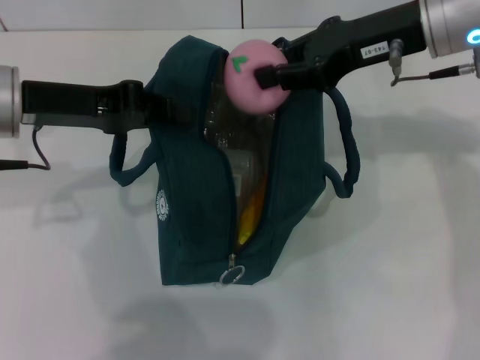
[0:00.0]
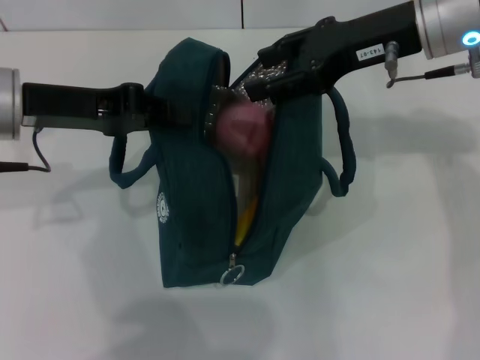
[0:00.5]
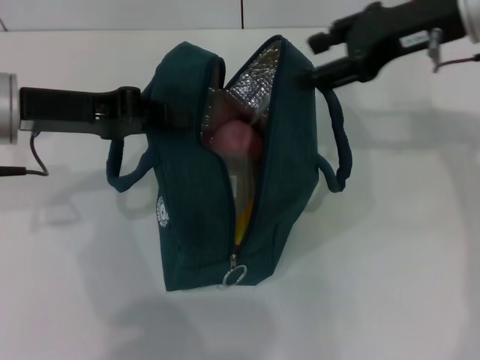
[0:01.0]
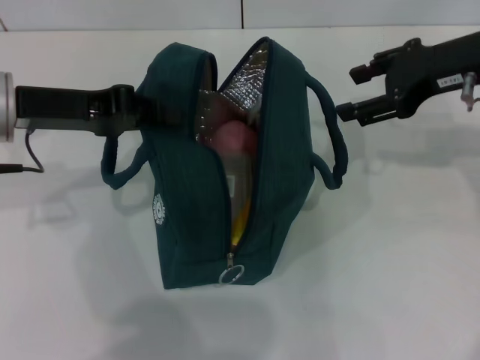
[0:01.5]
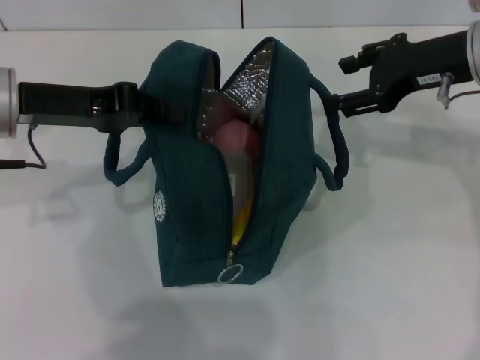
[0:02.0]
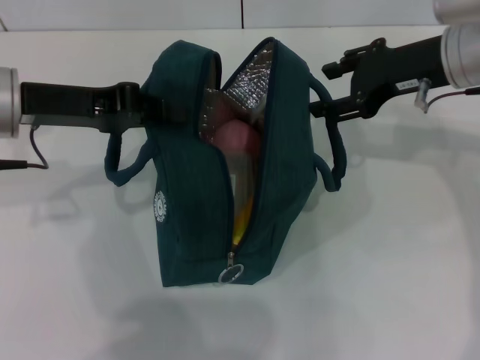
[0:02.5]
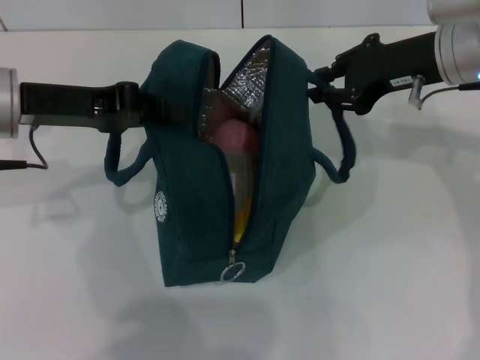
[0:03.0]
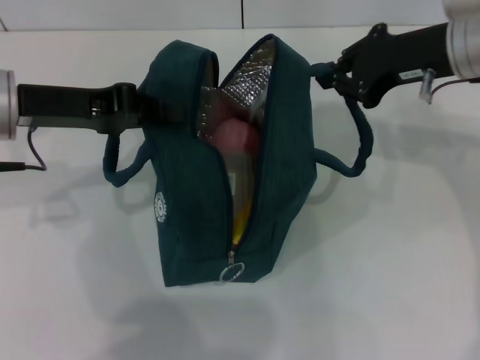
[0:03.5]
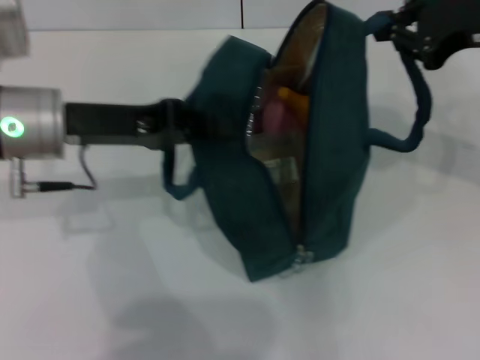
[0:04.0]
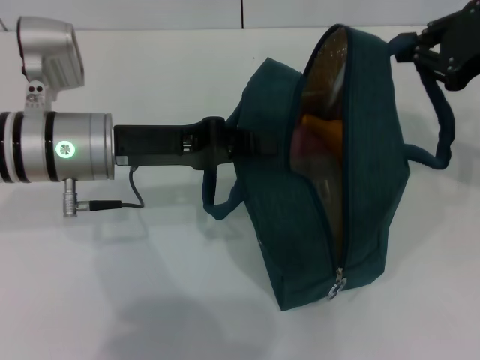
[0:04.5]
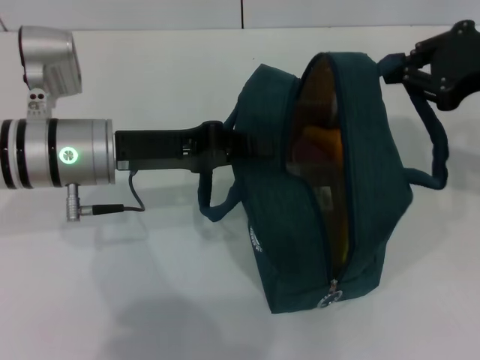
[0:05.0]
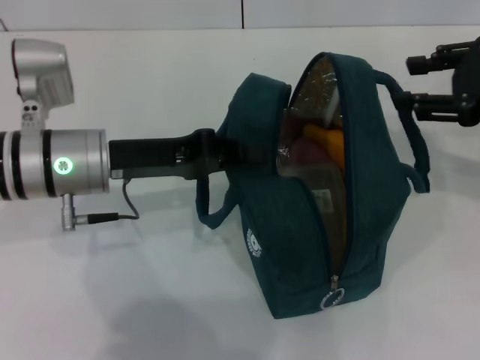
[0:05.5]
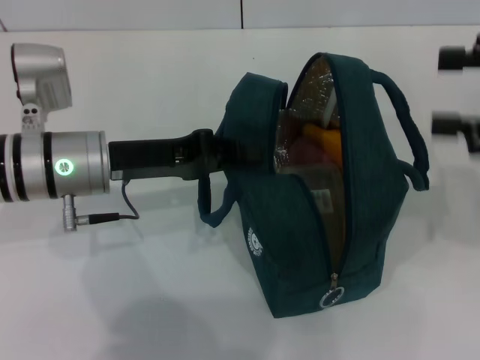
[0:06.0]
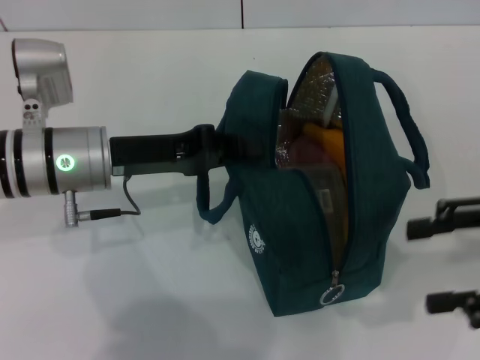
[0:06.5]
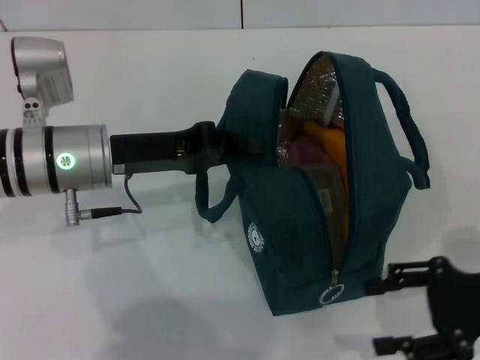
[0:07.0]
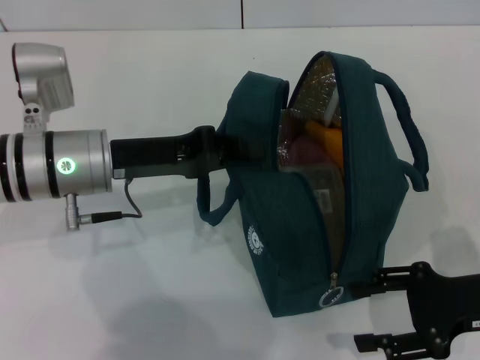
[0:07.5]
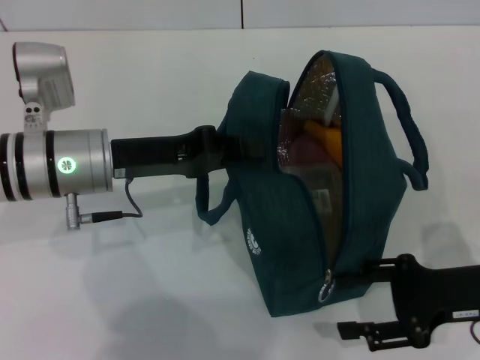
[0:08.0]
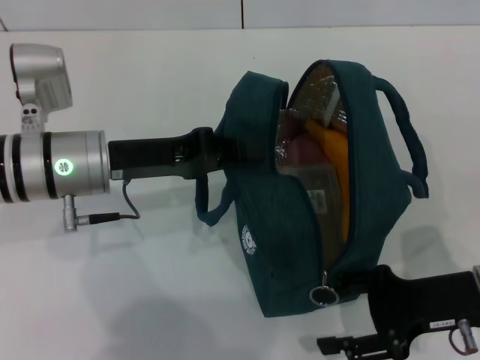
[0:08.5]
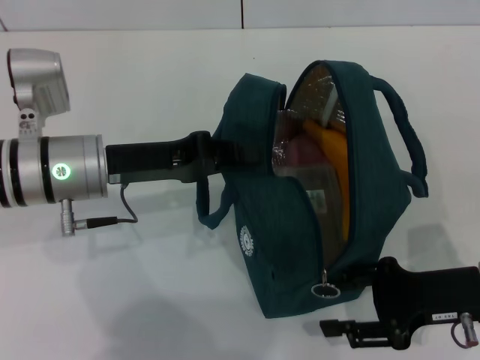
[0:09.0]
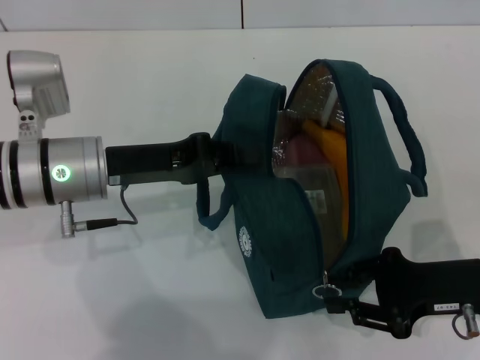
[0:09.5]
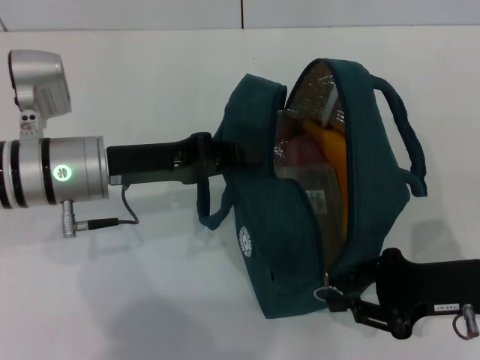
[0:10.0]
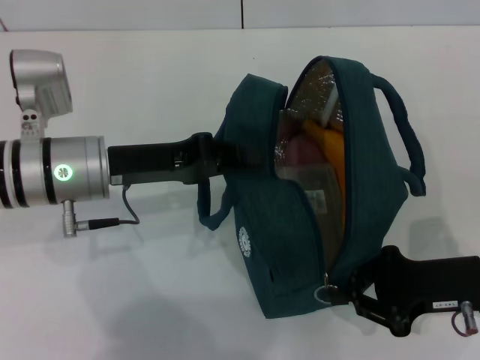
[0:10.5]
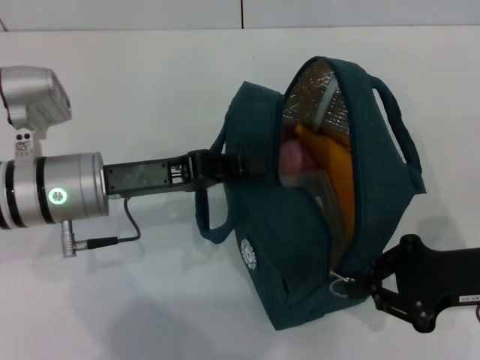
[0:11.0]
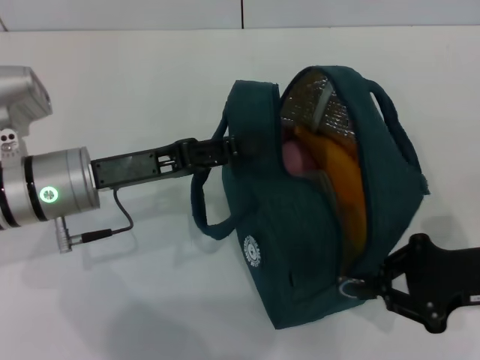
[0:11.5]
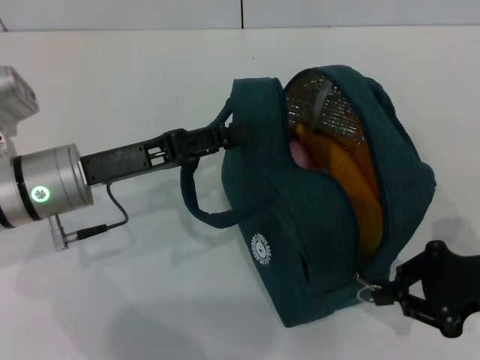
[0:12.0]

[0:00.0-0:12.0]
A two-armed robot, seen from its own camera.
Step, 0:01.0 to 0:05.0: Hold the lunch bag with your right hand.
0:00.0 to 0:02.0: The right gripper is displaced to the right by some 5 cm, and opens its fingers.
0:02.0 to 0:04.0: The right gripper shifts by roughly 5 cm, and closes its fingers.
0:04.0 to 0:06.0: The left gripper moves approximately 5 cm. Meanwhile the right gripper moves backward and to the right, approximately 10 cm, and opens.
0:06.0 to 0:08.0: The right gripper heads downward, covering about 20 cm.
0:08.0 to 0:10.0: The right gripper closes its fingers.
0:10.0 to 0:12.0: The left gripper opens.

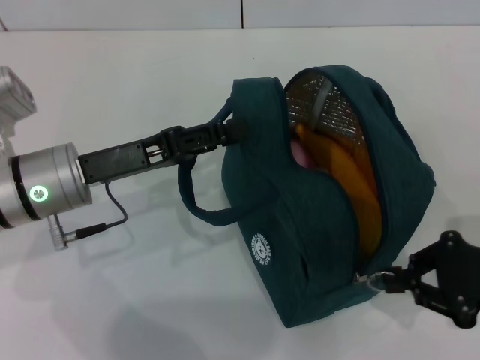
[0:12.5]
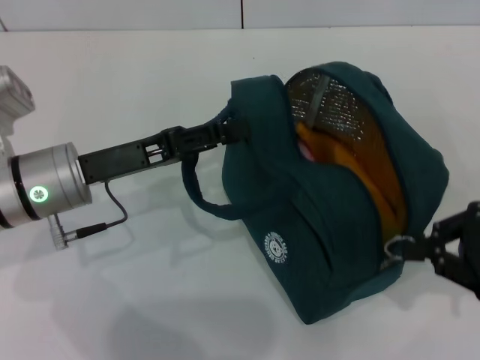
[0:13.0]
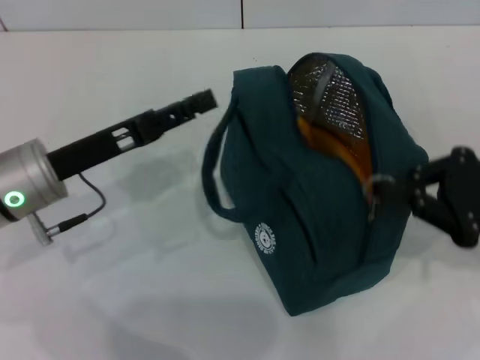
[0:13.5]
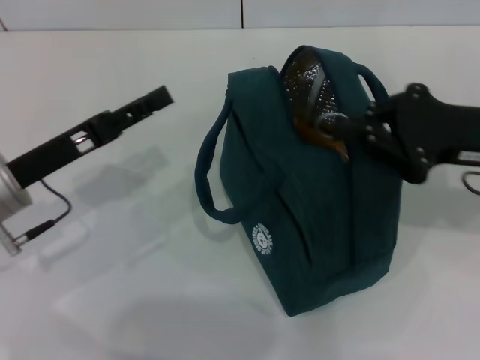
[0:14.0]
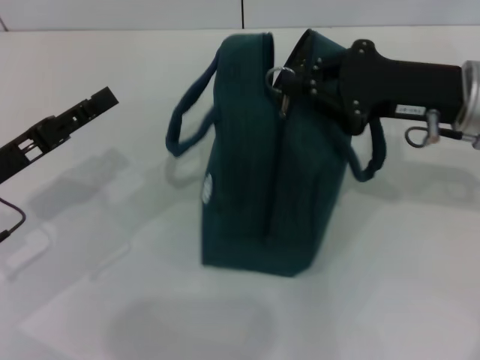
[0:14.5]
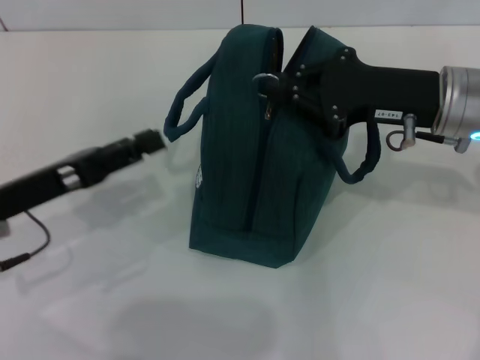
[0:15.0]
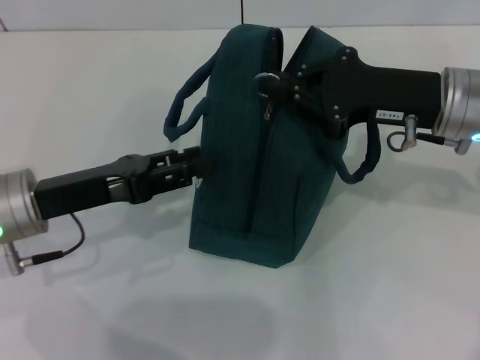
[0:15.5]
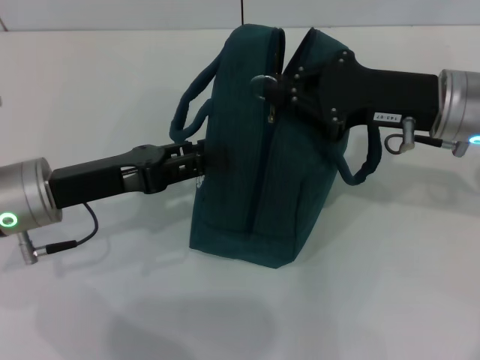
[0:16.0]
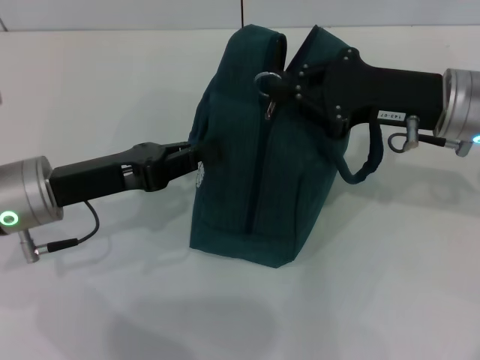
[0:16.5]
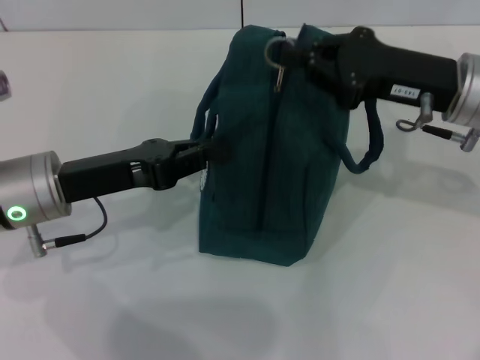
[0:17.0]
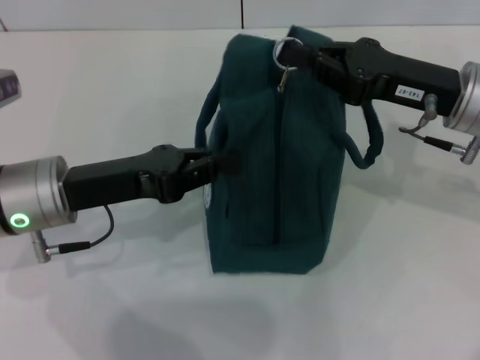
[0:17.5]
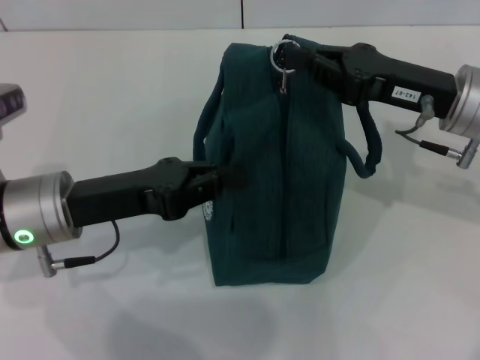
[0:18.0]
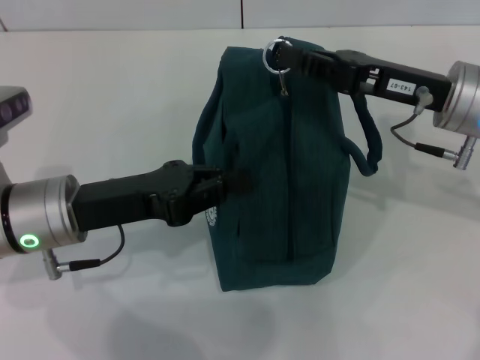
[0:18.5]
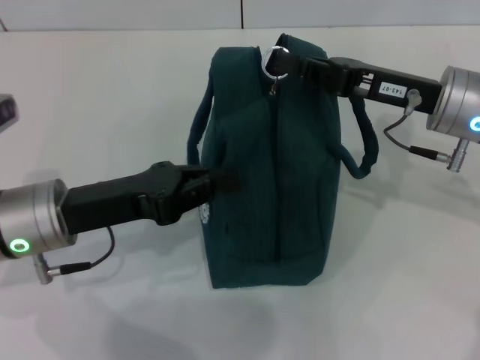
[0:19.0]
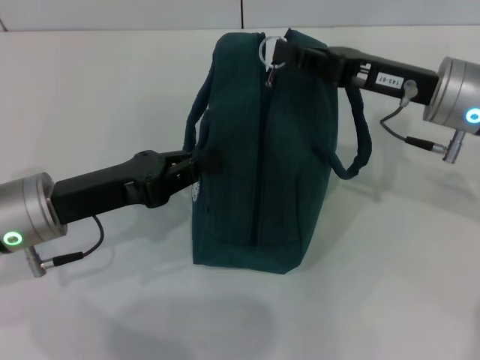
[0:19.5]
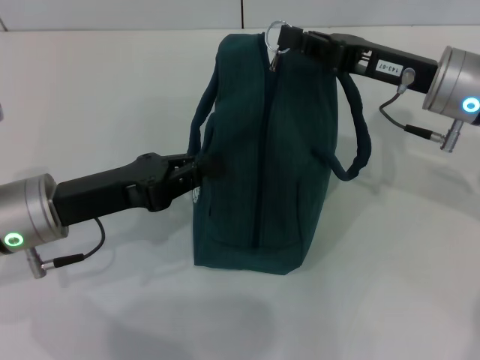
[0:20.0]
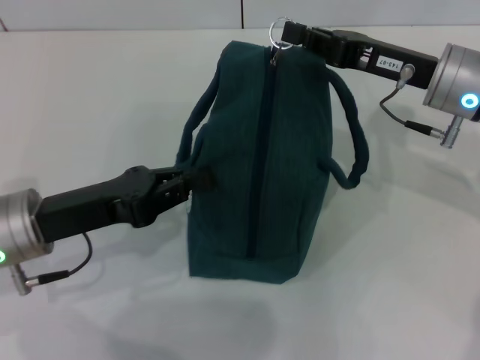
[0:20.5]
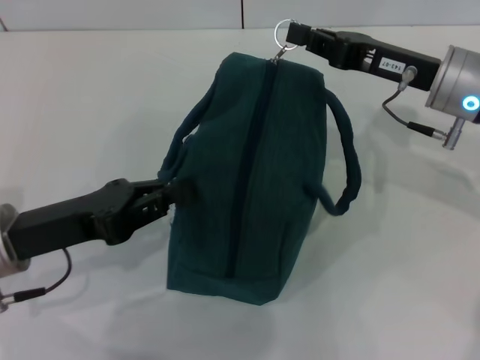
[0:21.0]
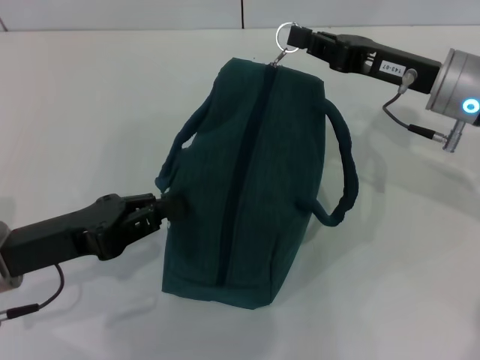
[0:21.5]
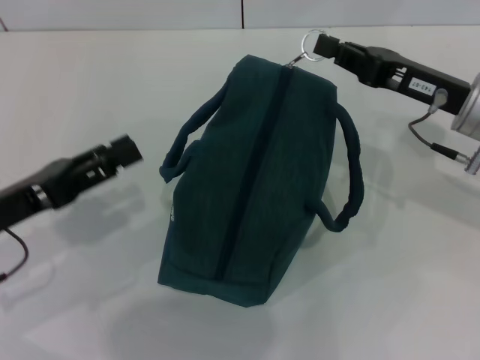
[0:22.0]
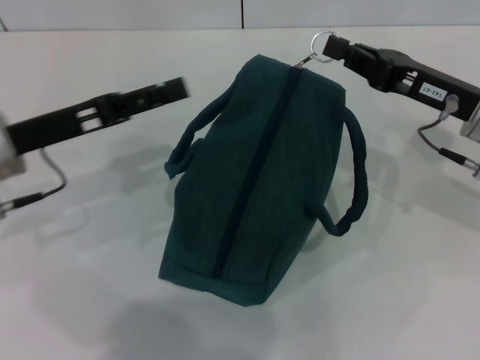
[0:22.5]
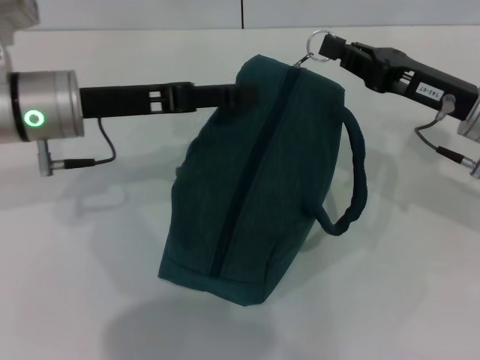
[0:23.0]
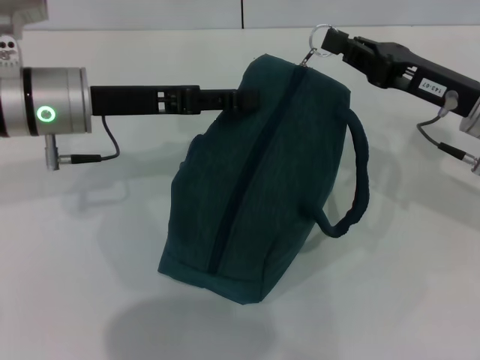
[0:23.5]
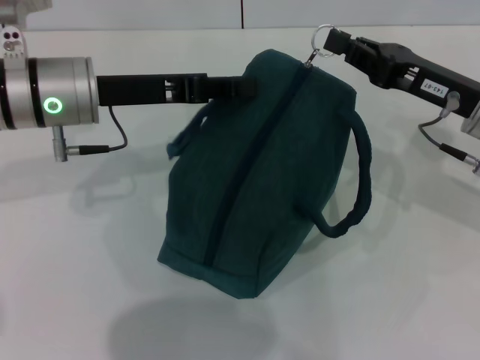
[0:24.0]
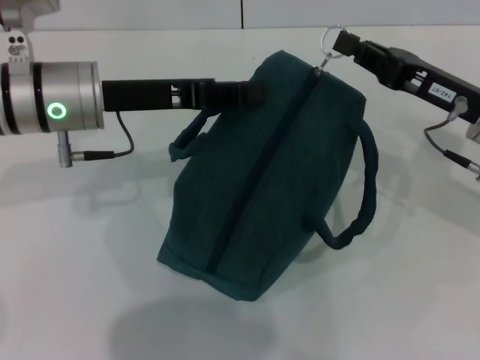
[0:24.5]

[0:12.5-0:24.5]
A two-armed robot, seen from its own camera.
0:12.5 to 0:14.5: The right gripper is displaced forward, to the left and upward by some 15 cm; the left gripper moves to the left, some 10 cm.
0:14.5 to 0:16.5: The left gripper goes approximately 5 cm to the right, and closes its fingers.
0:18.5 to 0:20.5: The grippers move only a little.
0:20.5 to 0:22.5: The left gripper travels forward by roughly 5 cm, and opens.
0:22.5 to 0:24.5: The left gripper moves to the right, some 5 cm, and closes up.

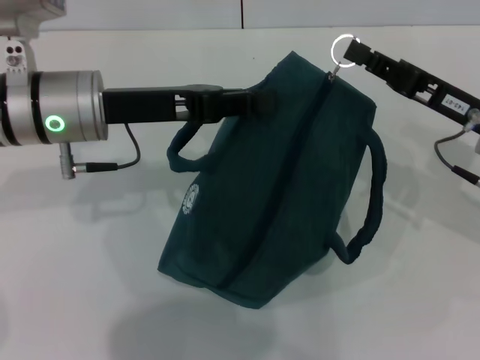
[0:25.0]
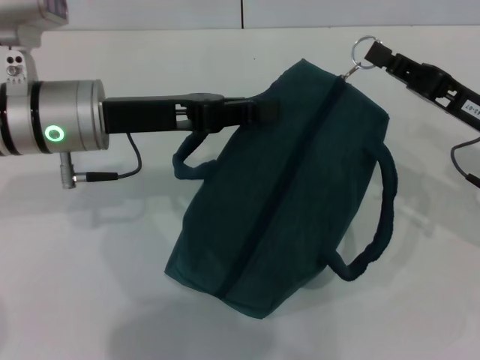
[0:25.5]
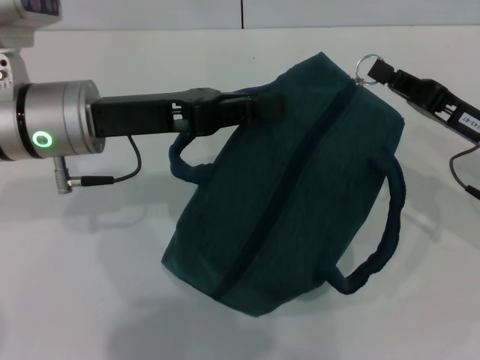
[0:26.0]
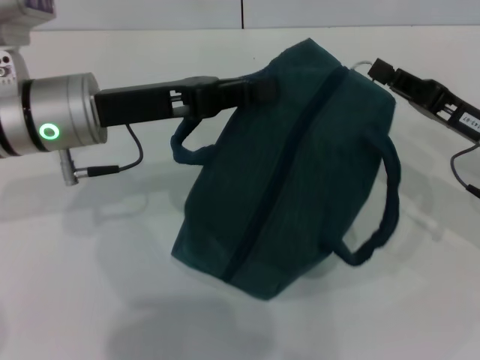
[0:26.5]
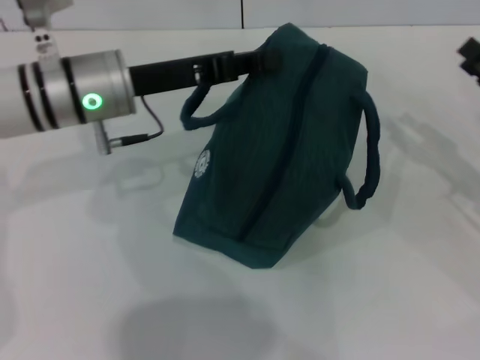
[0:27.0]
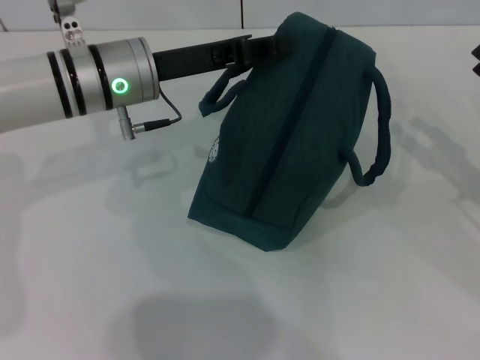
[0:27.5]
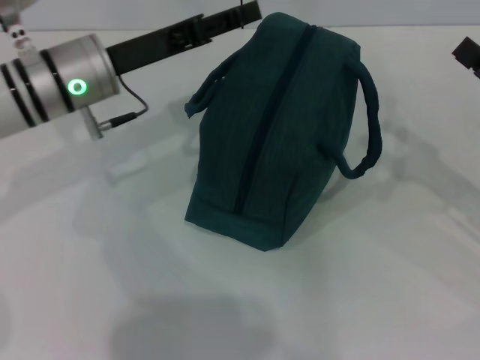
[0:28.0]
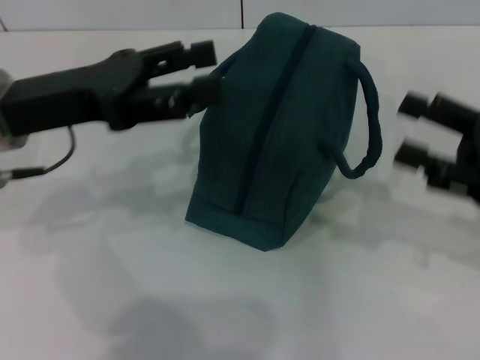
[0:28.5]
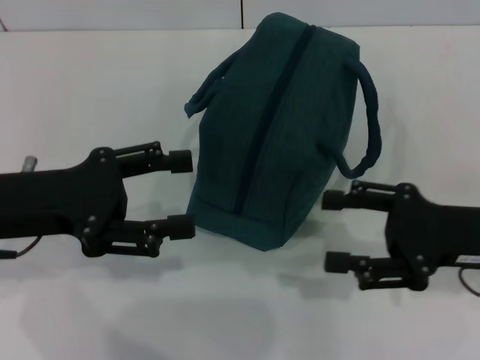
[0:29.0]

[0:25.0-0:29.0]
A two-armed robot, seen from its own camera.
Step, 0:27.0 to 0:27.5: Hold the lunch bag with your left hand.
0:25.0 to 0:27.0: The right gripper travels to the right by some 10 cm.
0:27.0 to 0:29.0: The left gripper shifts some 15 cm backward and to the left, and opens up. The right gripper moves to the left, roughly 5 cm, and opens.
